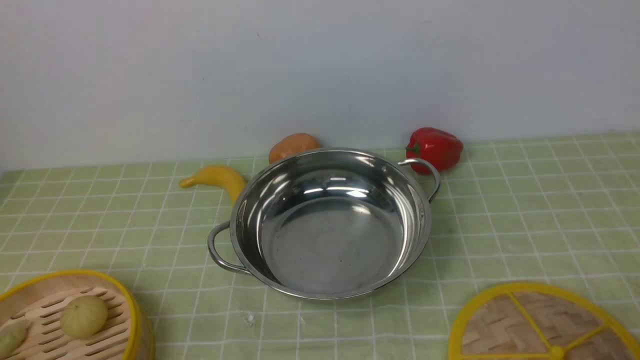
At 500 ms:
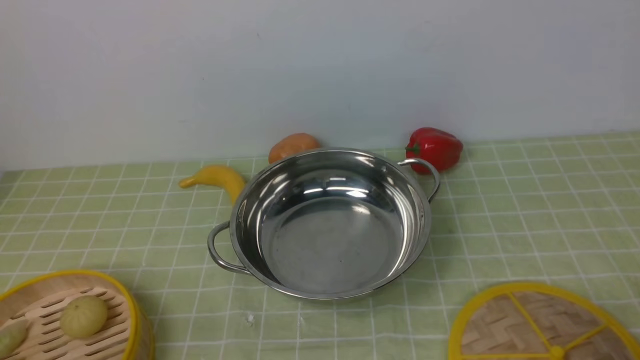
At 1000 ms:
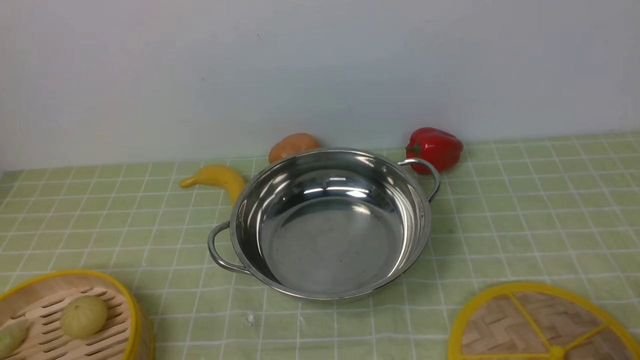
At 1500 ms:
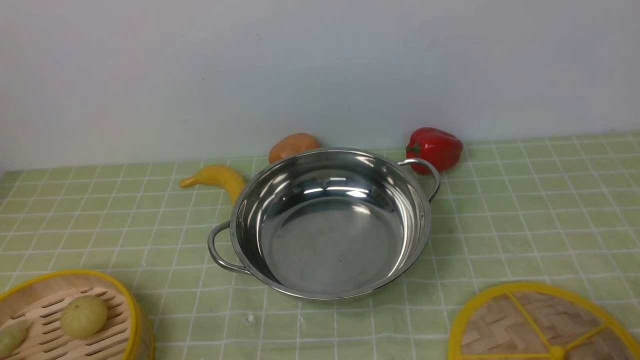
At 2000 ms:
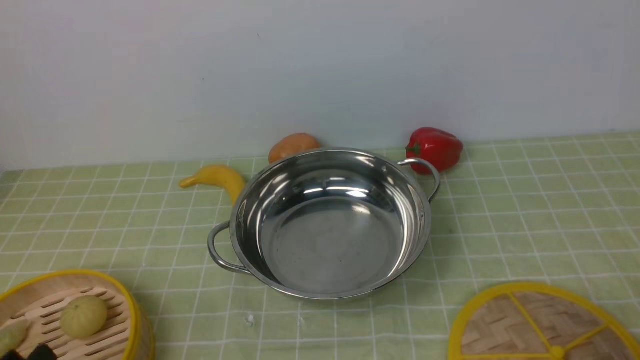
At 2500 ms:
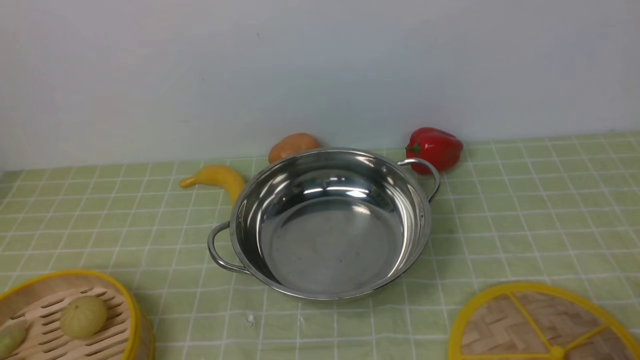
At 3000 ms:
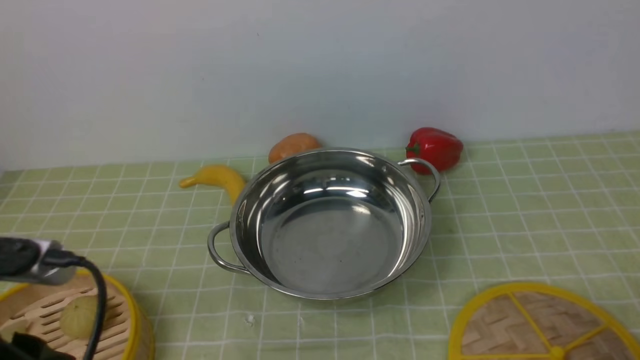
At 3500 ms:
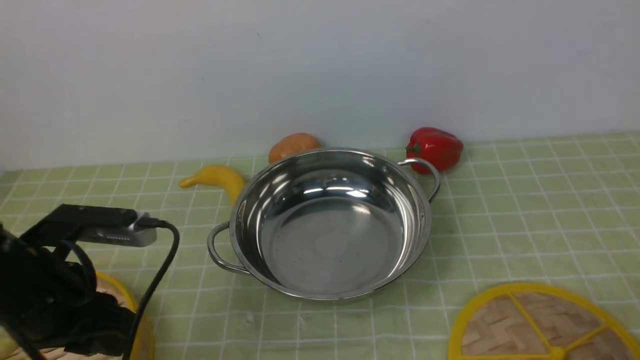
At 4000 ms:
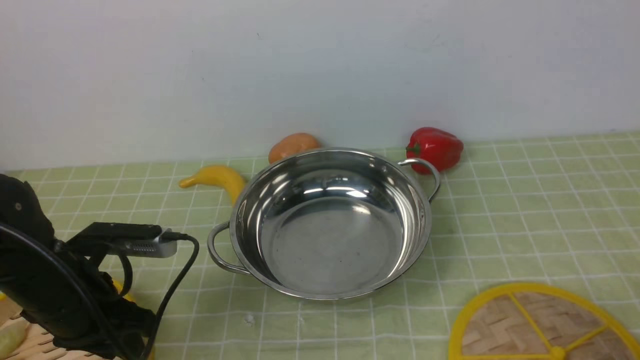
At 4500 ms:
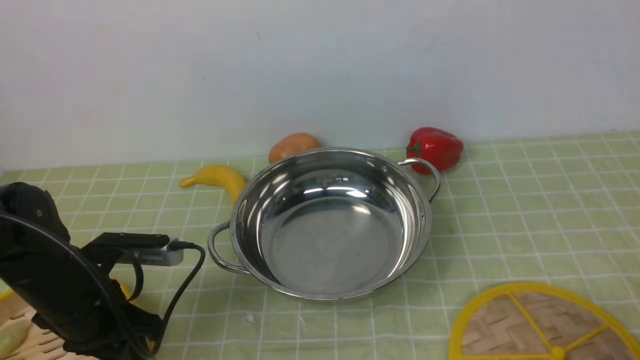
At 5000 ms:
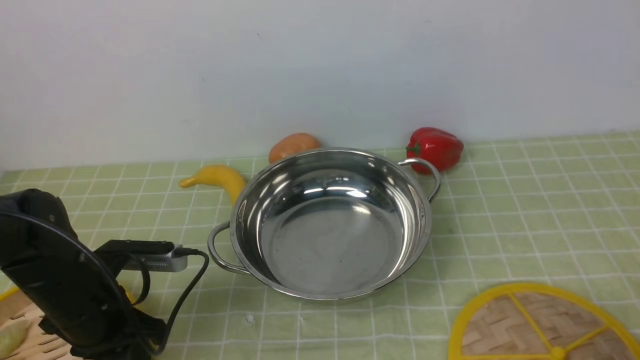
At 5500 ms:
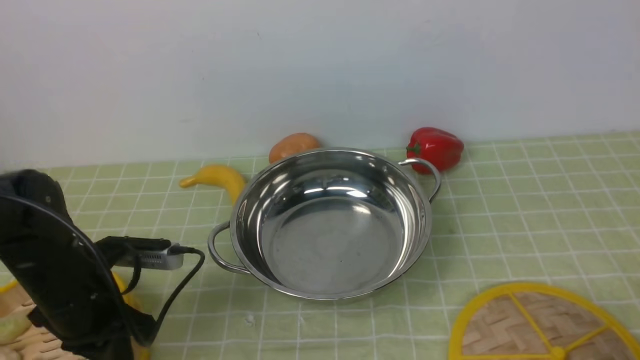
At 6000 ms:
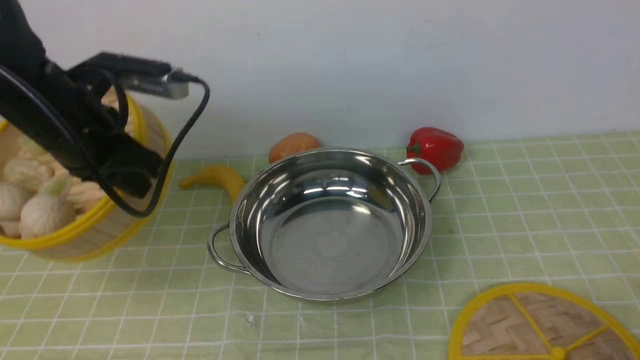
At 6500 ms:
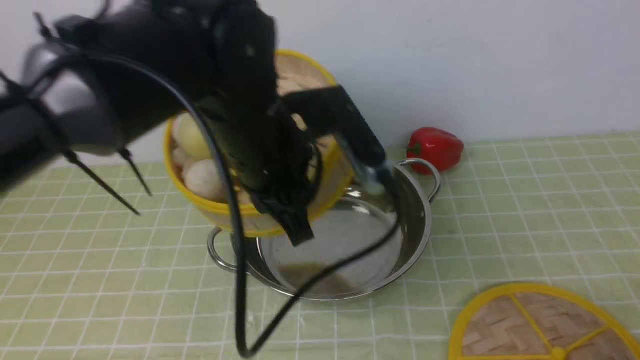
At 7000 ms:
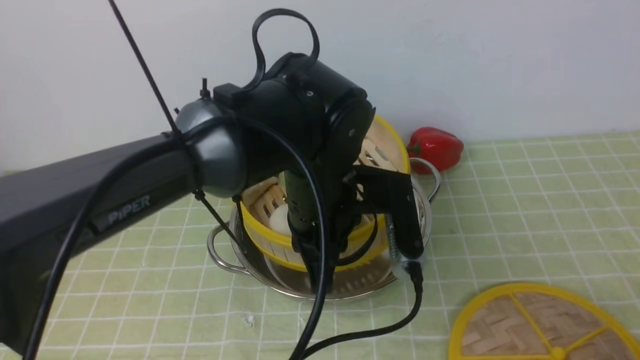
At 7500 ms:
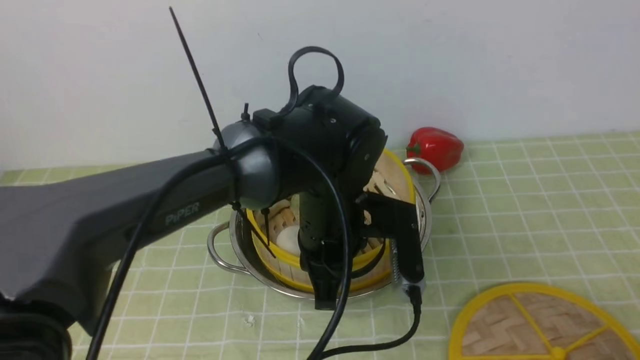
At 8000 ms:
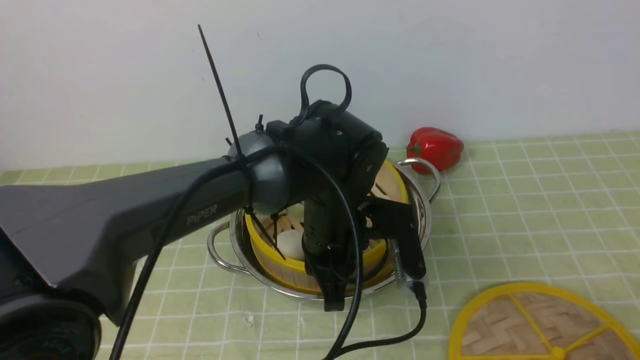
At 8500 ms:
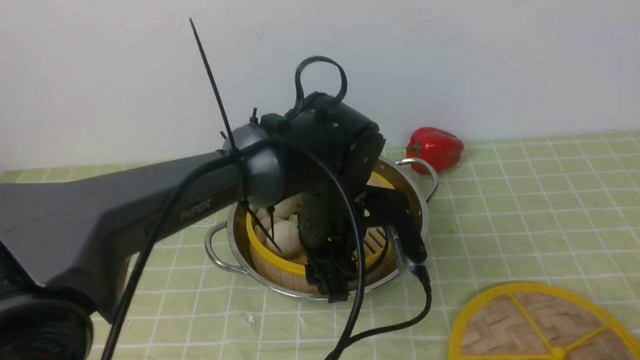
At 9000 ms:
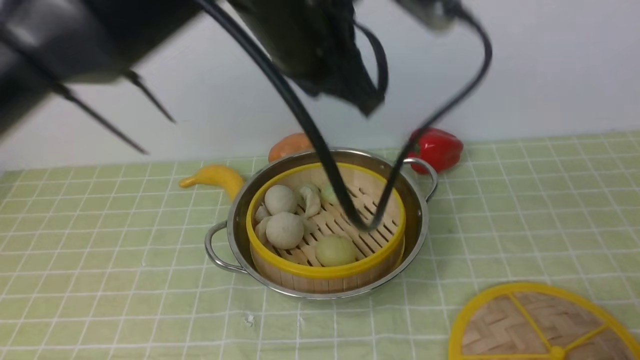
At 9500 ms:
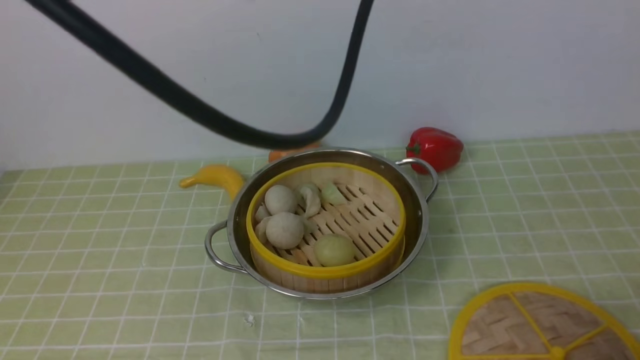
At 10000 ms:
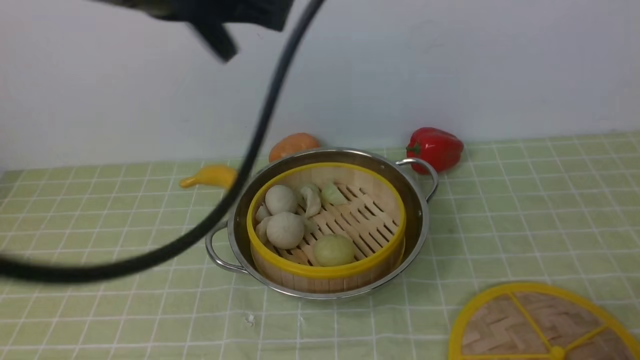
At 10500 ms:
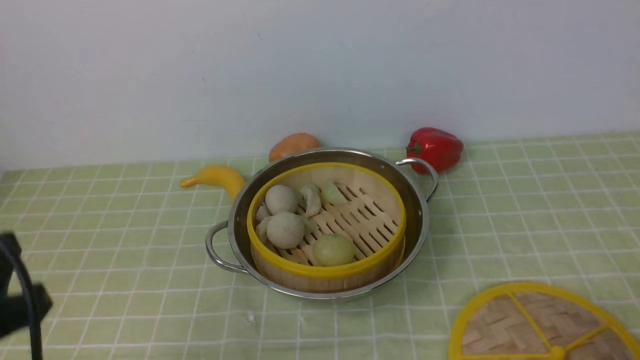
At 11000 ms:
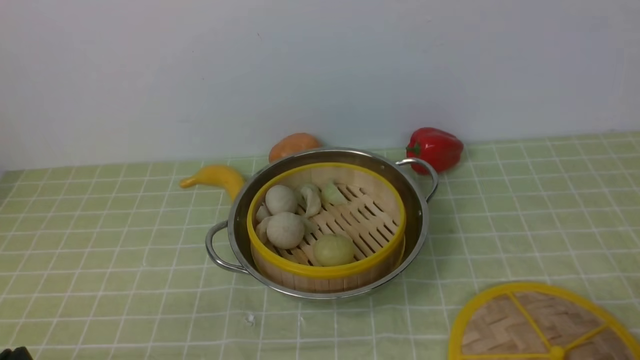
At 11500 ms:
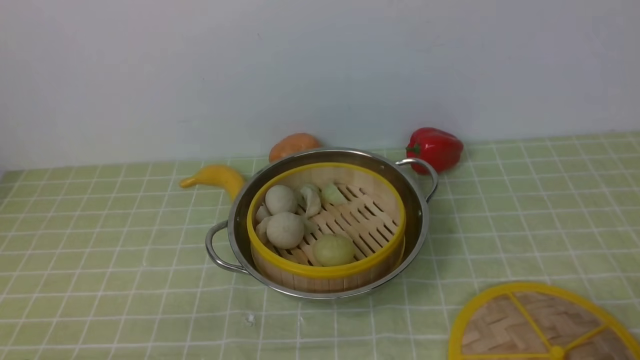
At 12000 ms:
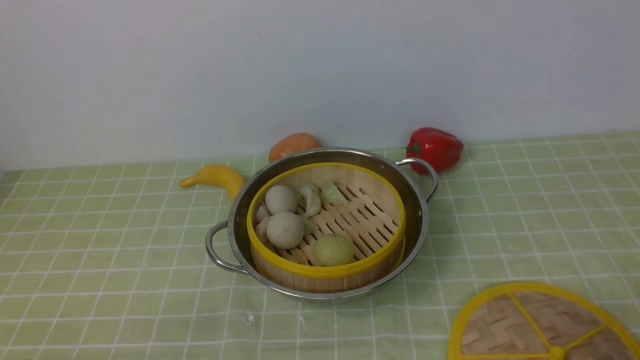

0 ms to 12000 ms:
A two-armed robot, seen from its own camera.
Task of the whole recording: place the steamer in the pot on the green tablecloth, and put the lid on the steamer.
Step, 0 ms to 5500 ms: use the left arm to lift the steamer closest to it.
Step, 6000 ms to 9000 ms: use the left arm to put the steamer into the iron steamer pot in the middle.
2000 ms to 4000 ms: The left gripper goes approximately 20 cm forward.
4000 ms to 6000 ms: The left gripper moves upward and forward, approximately 15 cm, and closes up.
6000 ms to 8000 ms: The left gripper travels to the right and downward by about 25 cm.
8000 ms to 10000 ms: The left gripper travels upward and to the left by some 30 cm, and opens, then closes once more.
10000 ms to 12000 ms: The left gripper moves downward, backward and to the left, some 35 cm.

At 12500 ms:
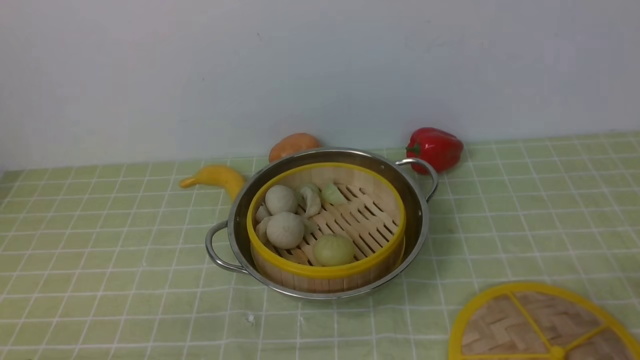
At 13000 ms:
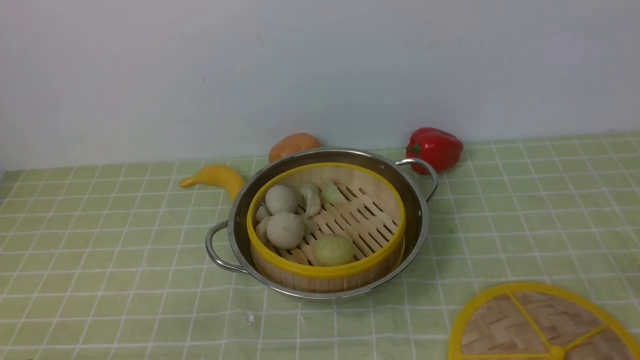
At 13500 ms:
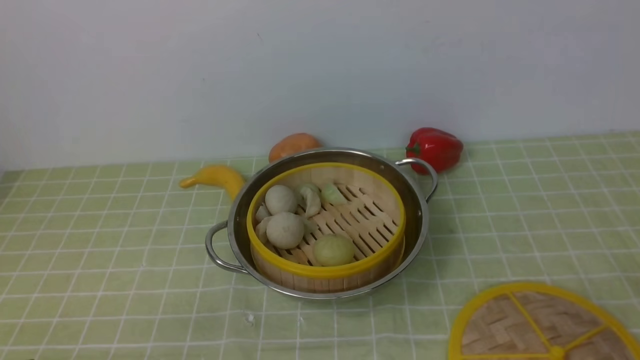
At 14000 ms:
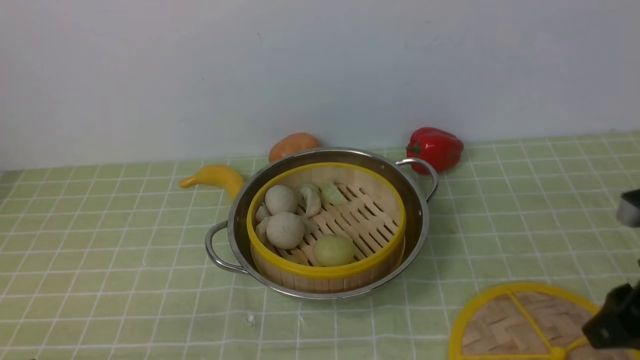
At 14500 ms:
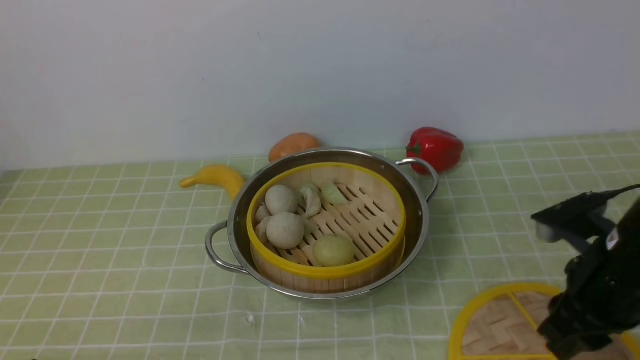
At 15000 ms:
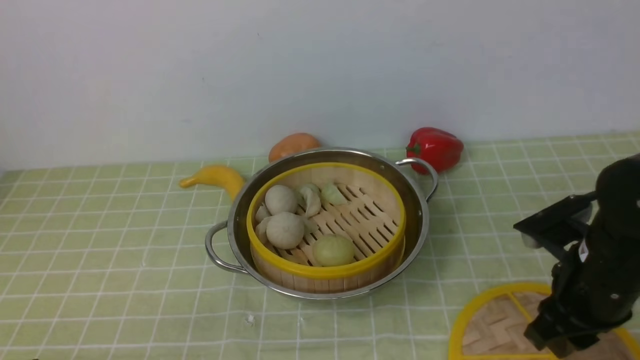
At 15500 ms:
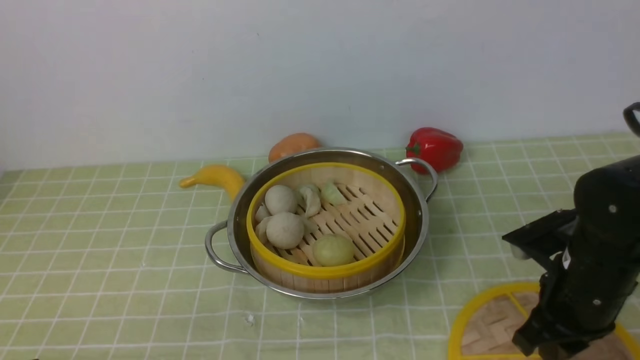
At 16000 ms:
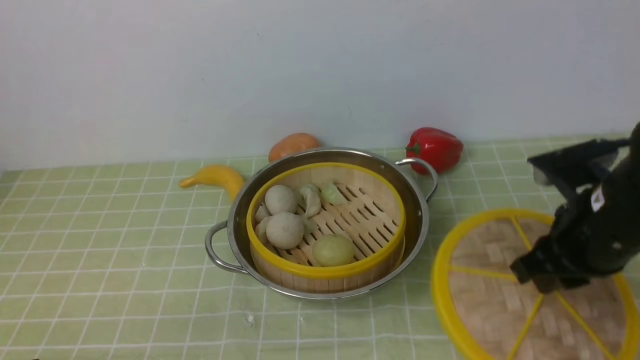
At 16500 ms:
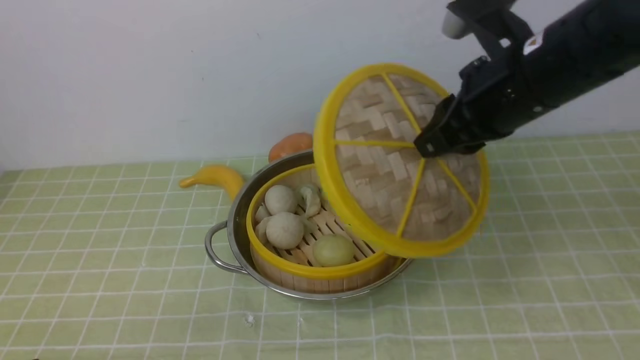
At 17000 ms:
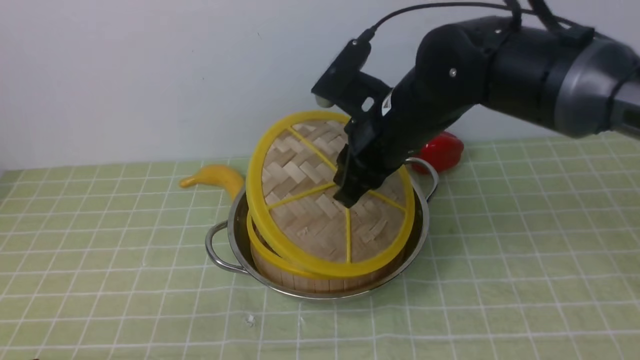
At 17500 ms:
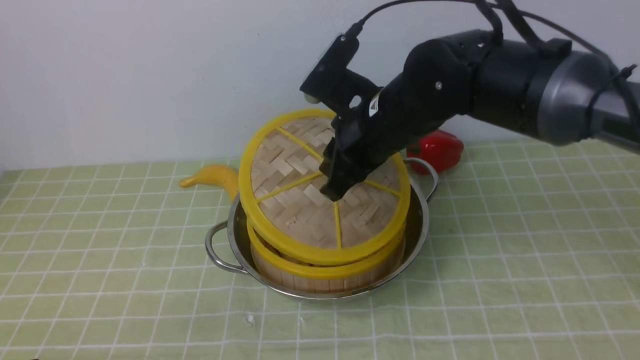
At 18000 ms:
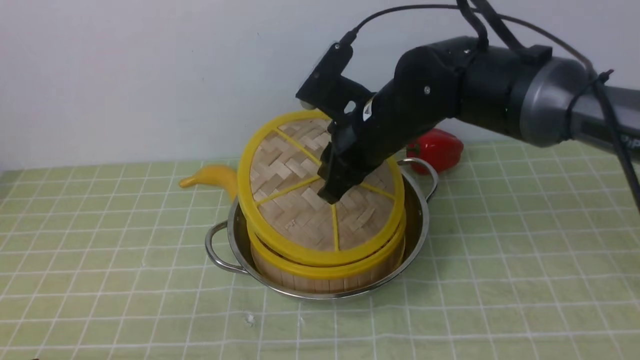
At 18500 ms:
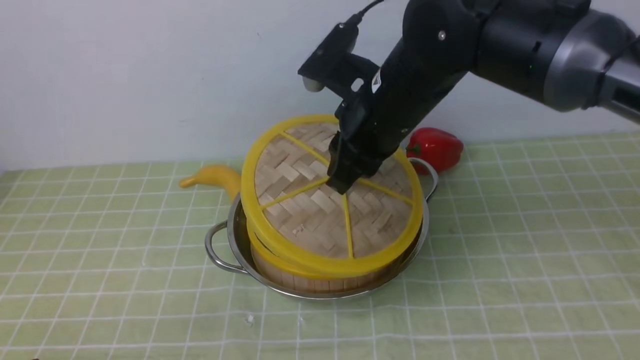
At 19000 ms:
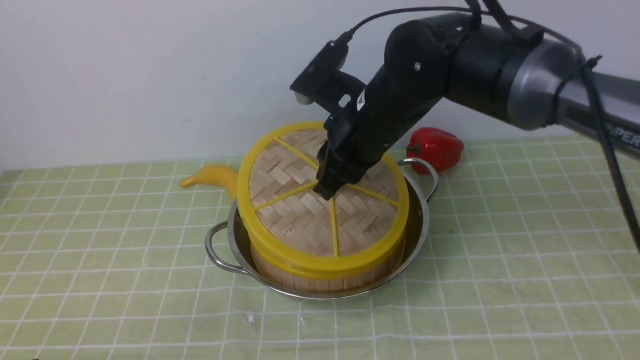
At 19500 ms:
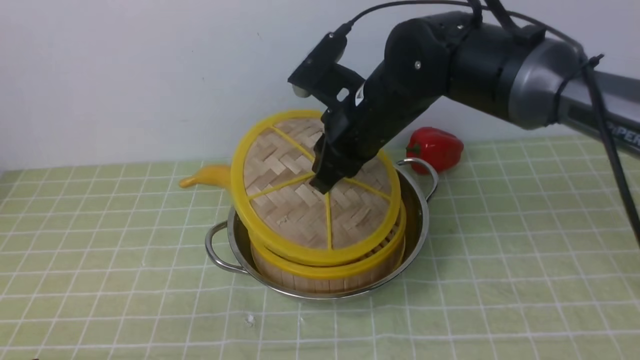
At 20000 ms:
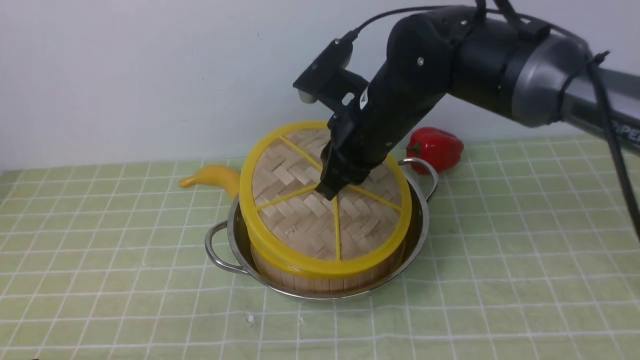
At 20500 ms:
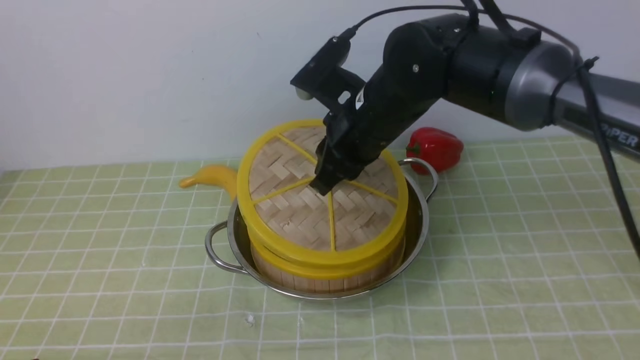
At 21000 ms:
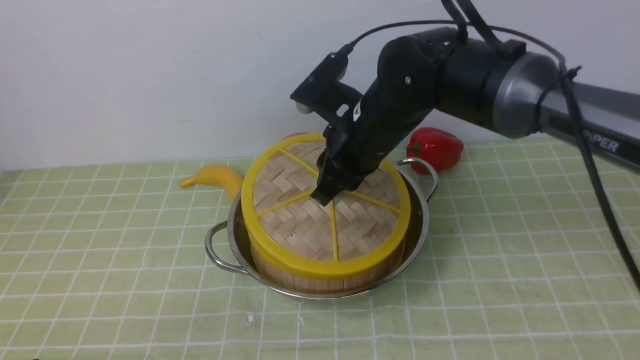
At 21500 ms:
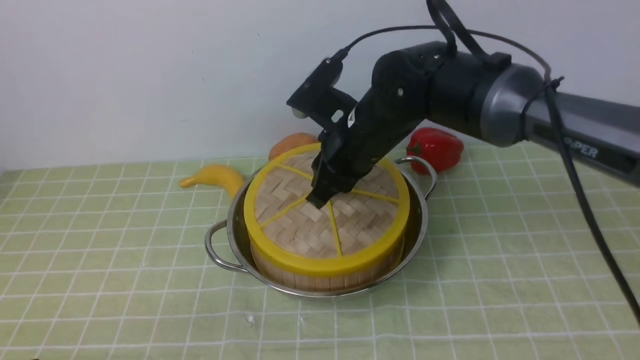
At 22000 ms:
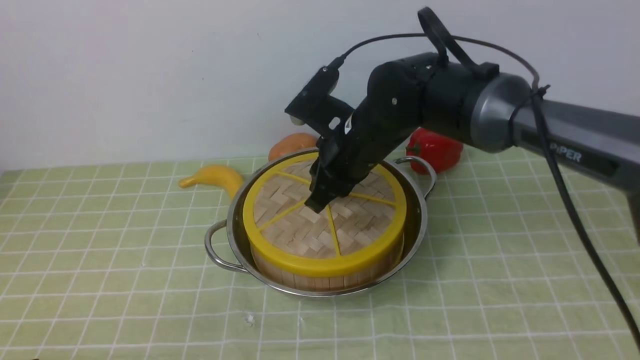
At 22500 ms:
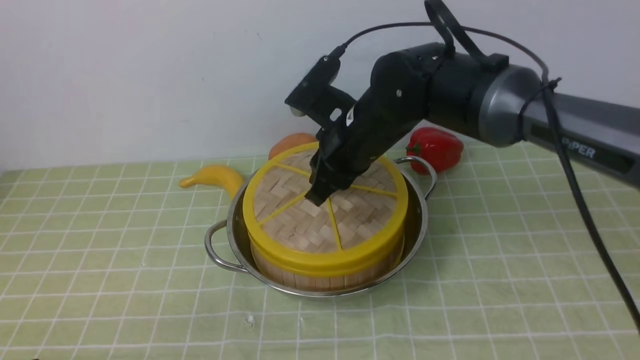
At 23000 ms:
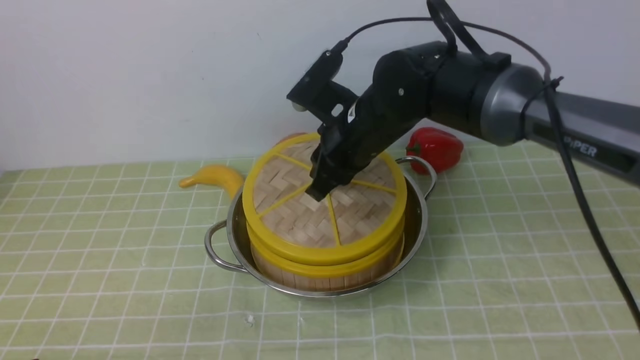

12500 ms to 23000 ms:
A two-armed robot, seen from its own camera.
Task of the whole recording: place the steamer in the pot on the green tablecloth, and put the lid on the steamer.
Step, 12500 ms to 16000 ms: use the right arm to lift the lid of the steamer.
12500 ms to 14500 ms: The right gripper heads forward, covering roughly 20 cm.
14500 ms to 16500 ms: The right gripper travels upward, to the left and forward by approximately 15 cm, and closes its fingers.
16500 ms to 19000 ms: The right gripper travels to the left and downward by about 10 cm.
19000 ms to 23000 ms: The grippers move only a little.
